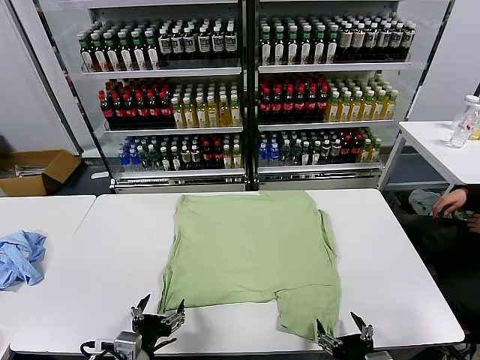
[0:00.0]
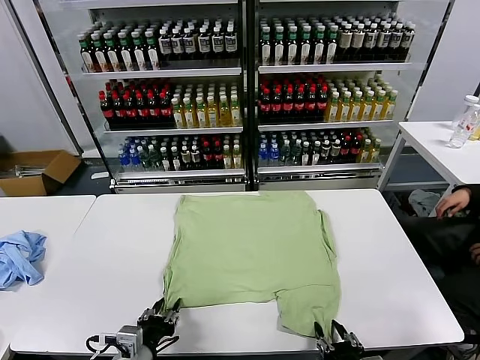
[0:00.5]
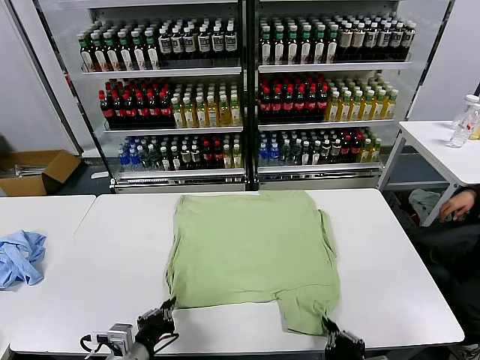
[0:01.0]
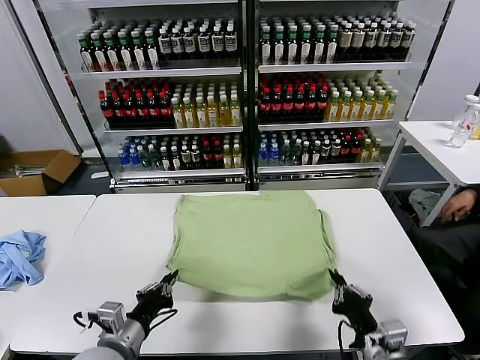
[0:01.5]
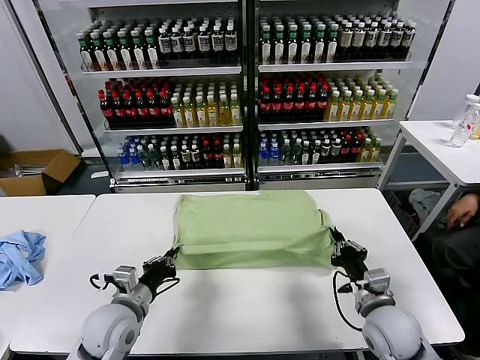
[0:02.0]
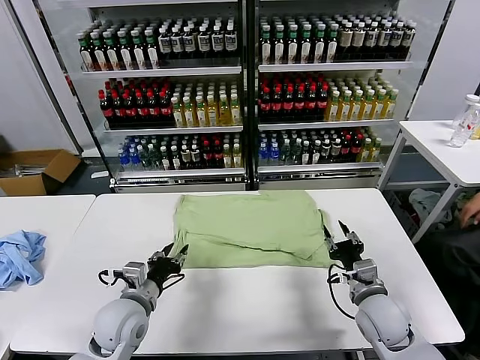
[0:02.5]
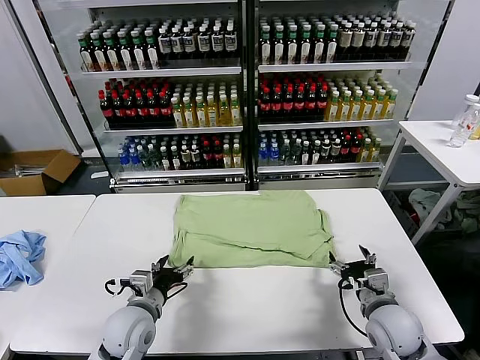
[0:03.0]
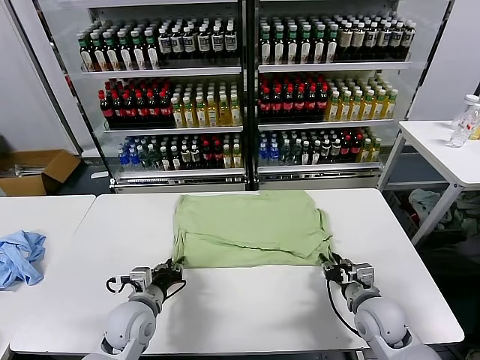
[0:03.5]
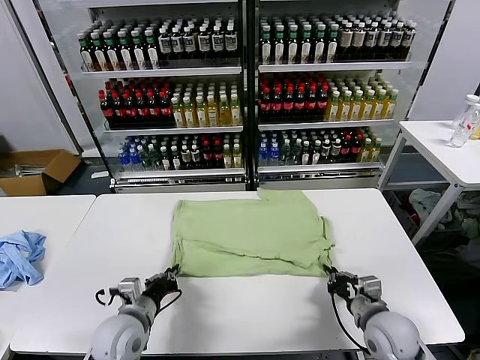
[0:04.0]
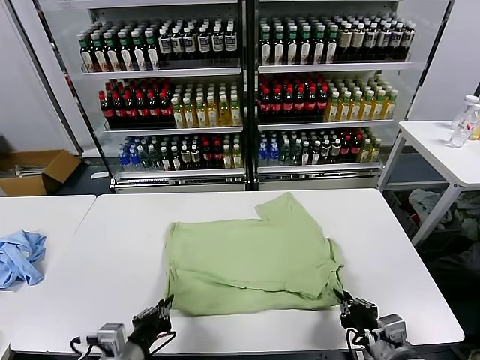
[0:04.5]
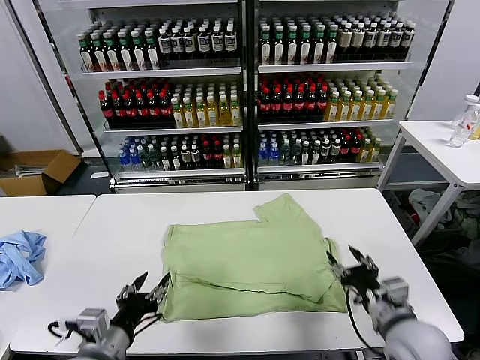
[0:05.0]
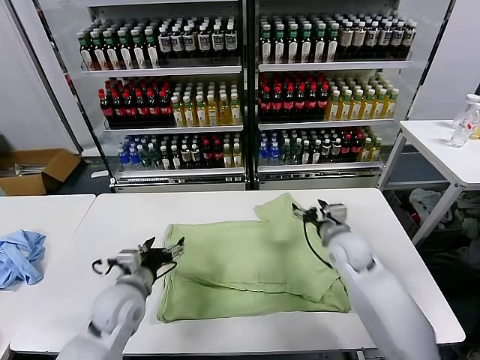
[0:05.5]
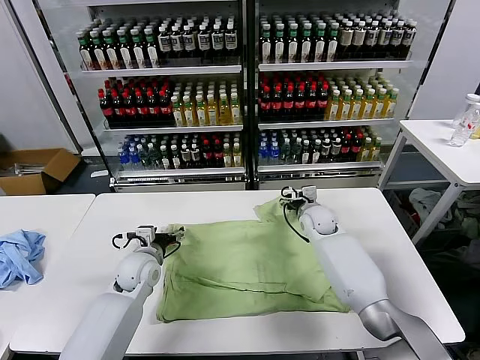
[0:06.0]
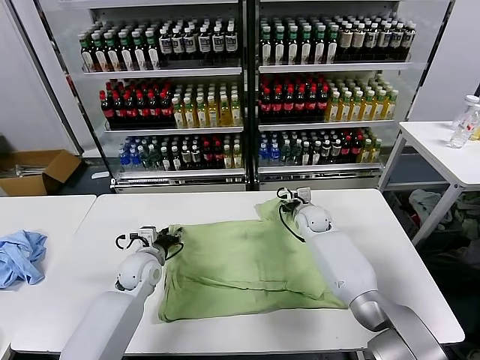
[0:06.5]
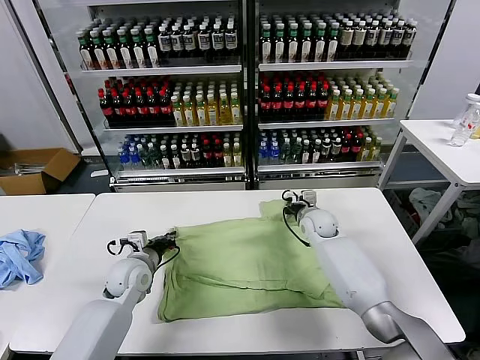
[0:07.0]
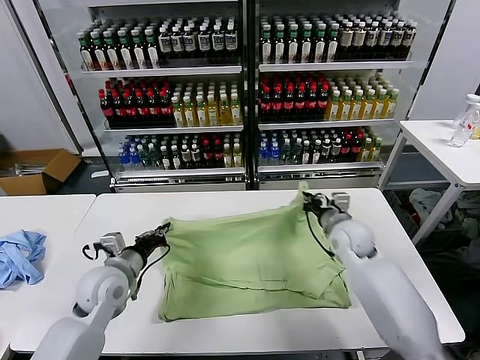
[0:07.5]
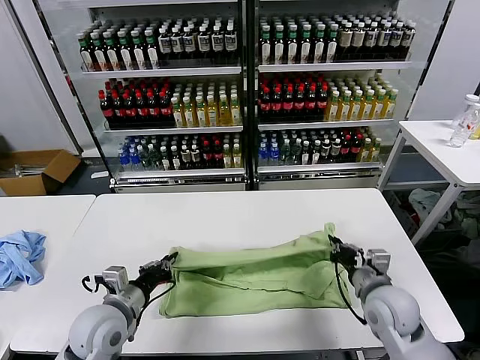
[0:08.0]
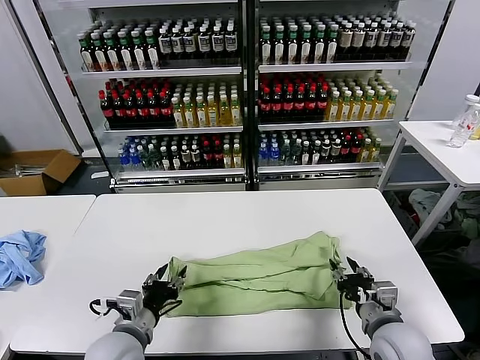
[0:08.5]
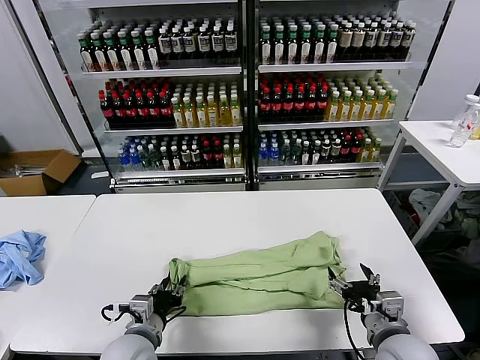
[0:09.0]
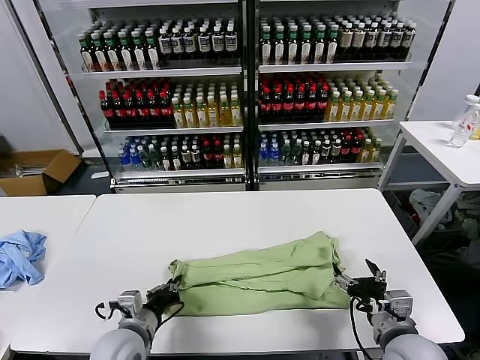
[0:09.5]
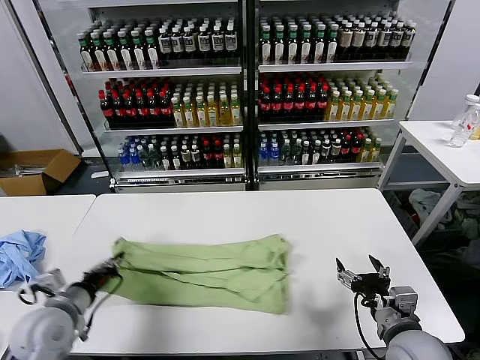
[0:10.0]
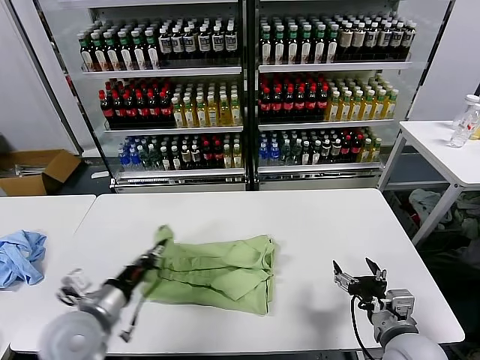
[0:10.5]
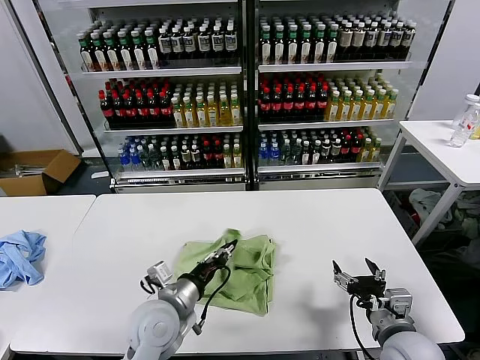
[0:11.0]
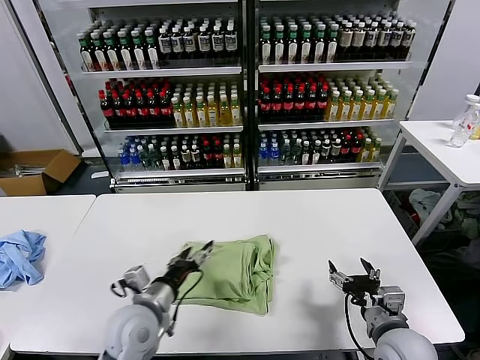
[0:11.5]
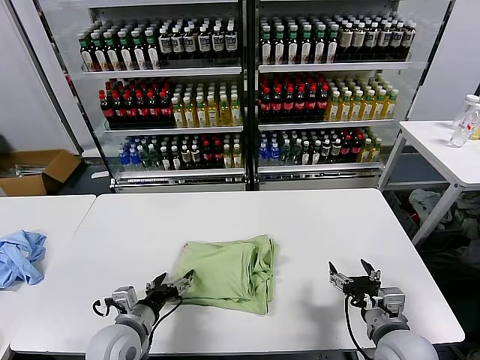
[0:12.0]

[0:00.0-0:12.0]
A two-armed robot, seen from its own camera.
Task of the whole recording: fold and organize the clothes.
Step, 0:00.0 to 0:00.5: use both grippers simultaneously to clamp the lower edge of the clothing fabric.
Step, 0:01.0 to 0:02.0: use both grippers to drag the lower edge of the fabric forward and fold it over the upper edge.
Step, 0:02.5 to 0:04.5: Drag the clothes downward with both gripper.
Step, 0:05.0 to 0:06.5: use both grippers simultaneously to clamp the upper edge of the clothing fabric.
Step, 0:07.0 to 0:08.0: use both grippers to drag the upper edge of the fabric backward and fold it over the lower edge.
Step, 0:08.5 to 0:09.0: use the left gripper to clamp the left edge of the fabric.
Step, 0:09.5 to 0:11.0: use the left gripper to drag the left edge of the fabric to the left and folds it over the right edge.
0:02.0 to 0:04.0: The right gripper changes place by about 5 cm, and opens, then closes again; the left gripper opens, then closes once more.
0:04.0 to 0:06.0: The left gripper shifts approximately 15 cm forward, and opens its fingers. The right gripper travels forward by some 30 cm, and opens its fingers.
0:06.0 to 0:08.0: The right gripper travels backward by some 25 cm, and closes. Meanwhile the left gripper heads backward, covering approximately 15 cm, and closes up.
0:08.0 to 0:10.0: The left gripper heads to the left, covering about 10 cm, and opens, then closes again, while the right gripper moves backward, roughly 5 cm, and opens.
0:10.0 to 0:12.0: The left gripper is displaced to the right and downward by approximately 15 cm, and opens up.

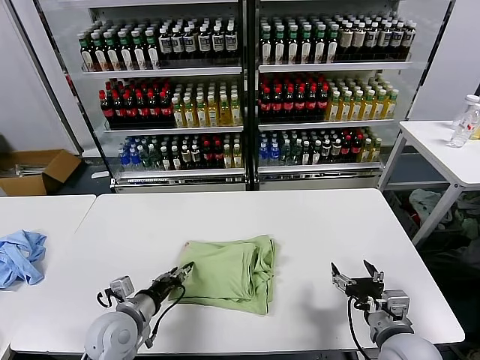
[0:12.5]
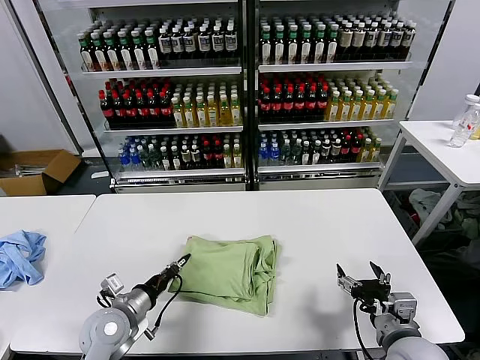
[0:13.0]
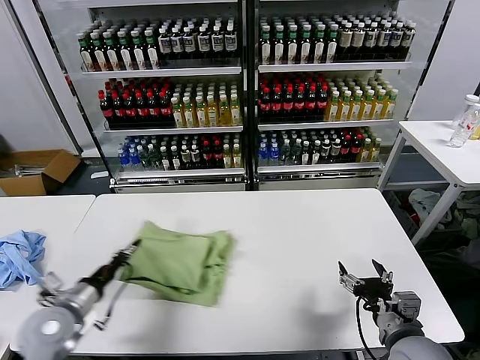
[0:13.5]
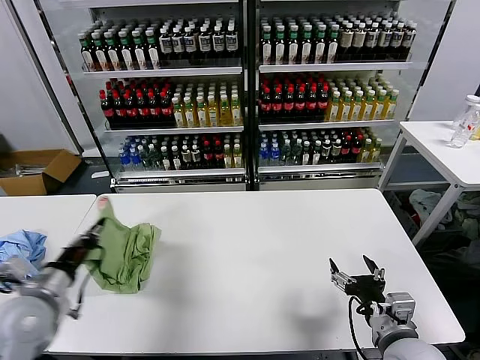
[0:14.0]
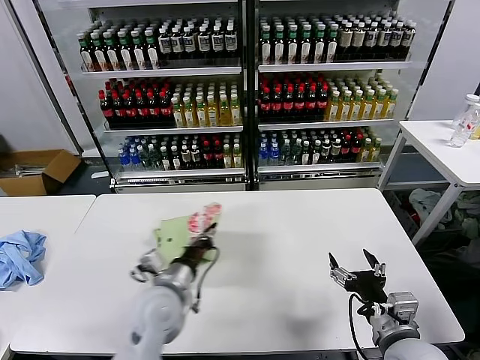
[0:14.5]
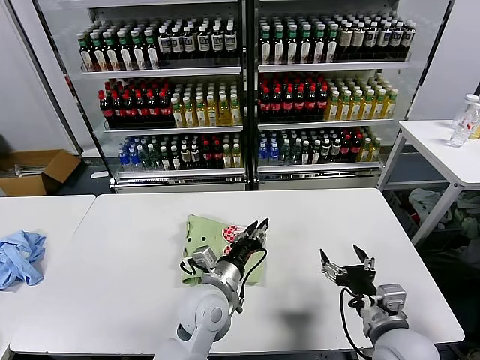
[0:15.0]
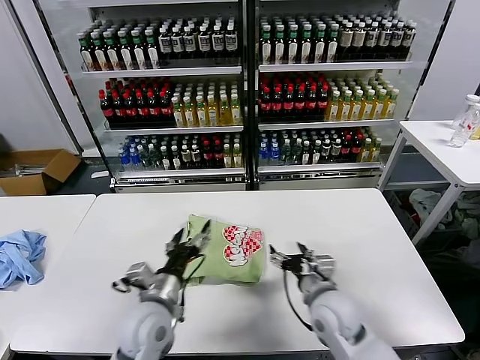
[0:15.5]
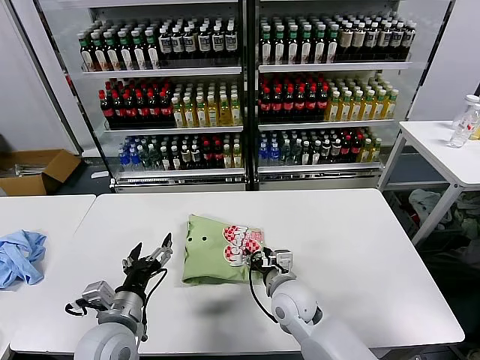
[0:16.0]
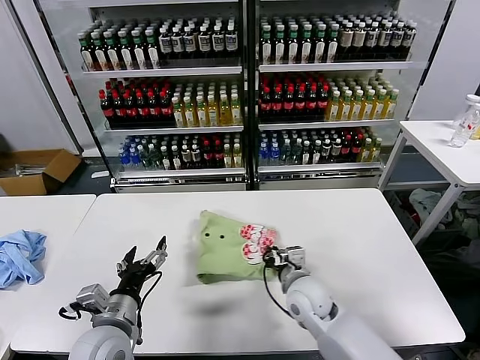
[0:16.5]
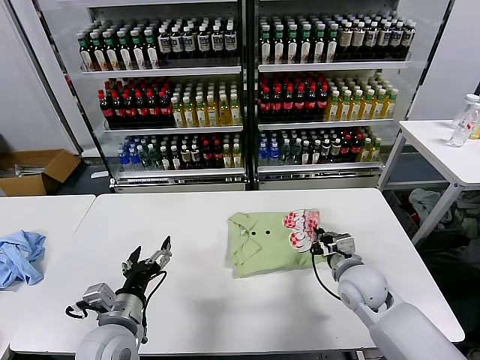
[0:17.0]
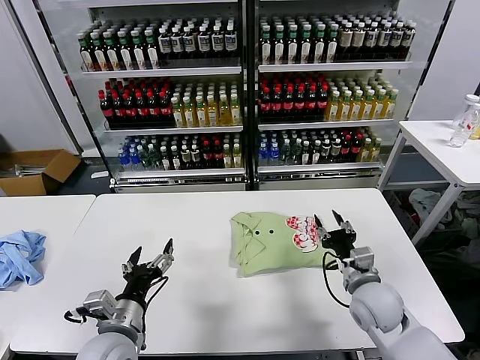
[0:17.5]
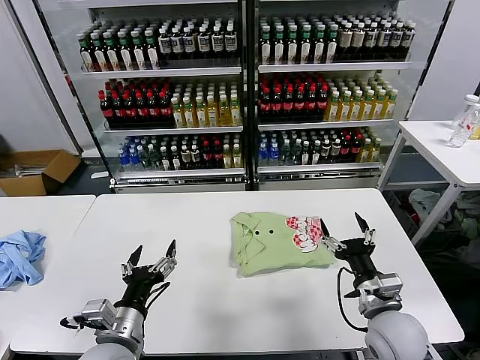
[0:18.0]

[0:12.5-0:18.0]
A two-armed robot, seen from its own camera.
Task of the whole recording: fold and organize the clothes.
Step, 0:12.5 to 0:14.5: Flip the folded clothes over with left gripper.
Step, 0:15.0 to 0:17.0: Drag the clothes to the center of the table.
0:12.5 to 0:14.5: The left gripper goes some 10 cm to the right and upward, and closes its fingers.
0:14.5 to 0:16.0: The left gripper shifts roughly 5 cm backward, moves about 10 cm to the right and comes back, and opens its fingers. Meanwhile the right gripper heads to the left, forward and downward, covering roughly 25 cm.
0:16.0 to 0:18.0: The right gripper moves to the right and backward, about 20 cm, and closes and opens again.

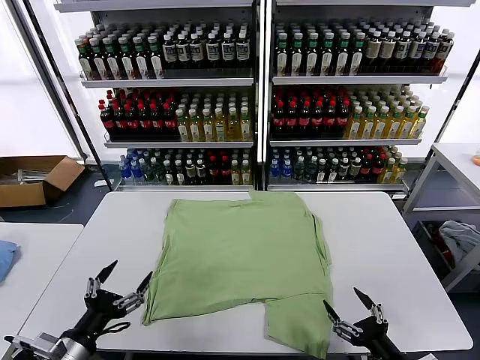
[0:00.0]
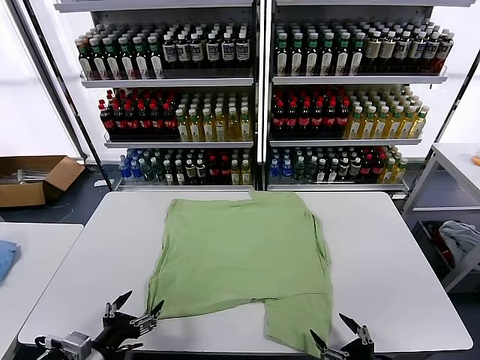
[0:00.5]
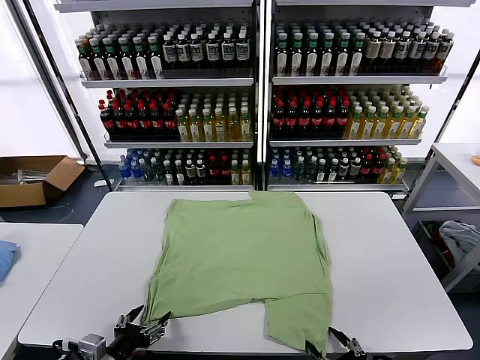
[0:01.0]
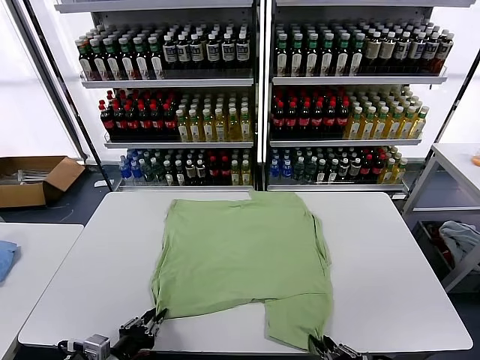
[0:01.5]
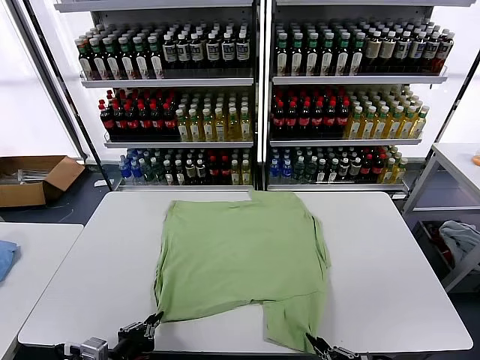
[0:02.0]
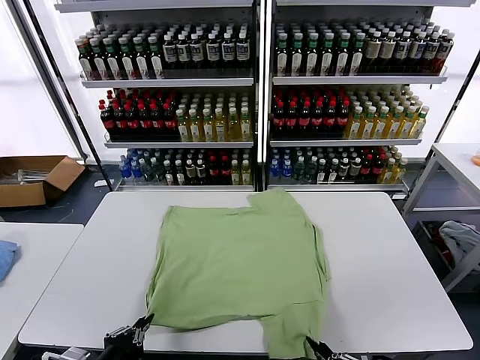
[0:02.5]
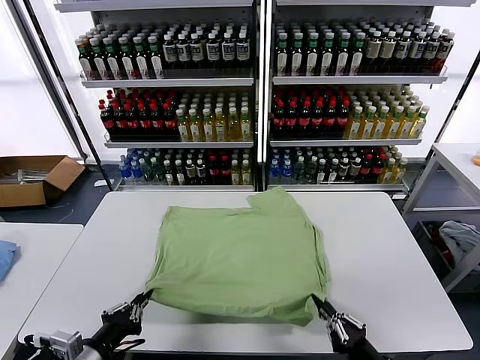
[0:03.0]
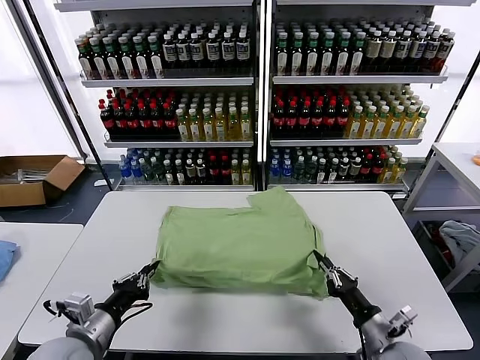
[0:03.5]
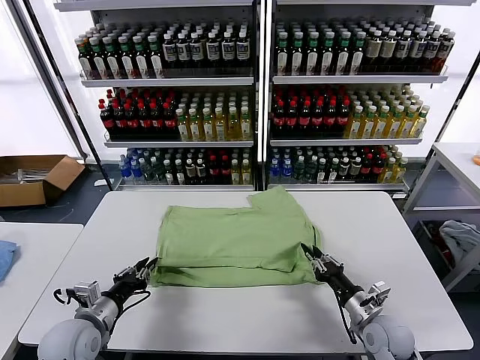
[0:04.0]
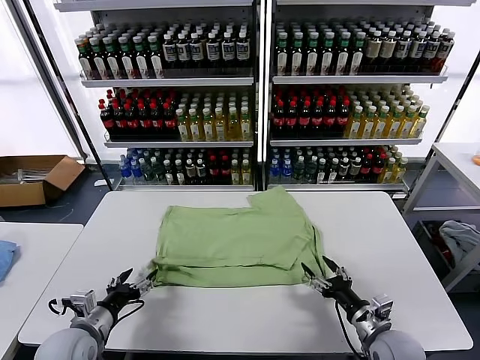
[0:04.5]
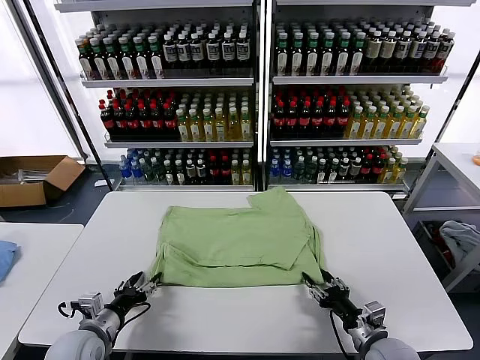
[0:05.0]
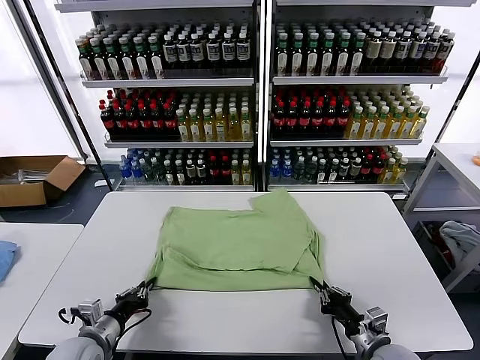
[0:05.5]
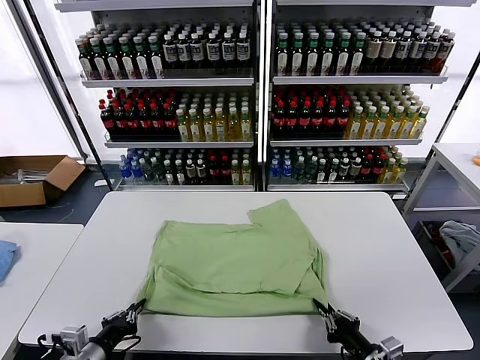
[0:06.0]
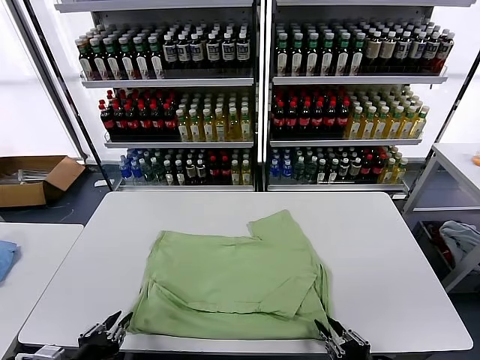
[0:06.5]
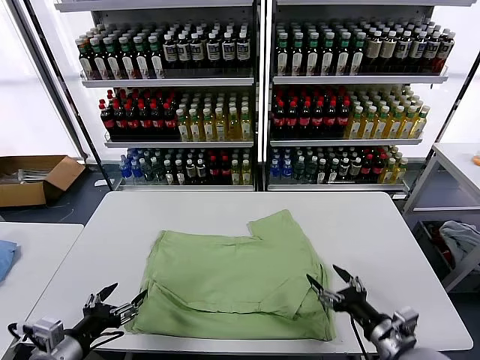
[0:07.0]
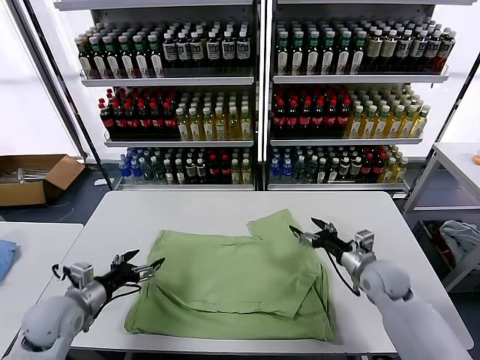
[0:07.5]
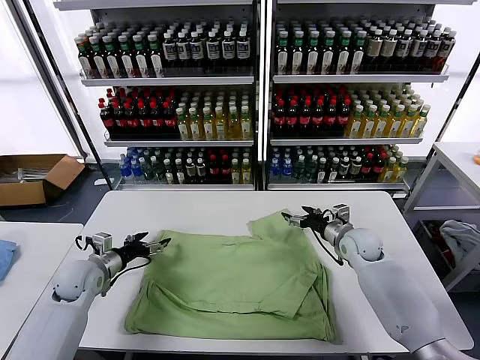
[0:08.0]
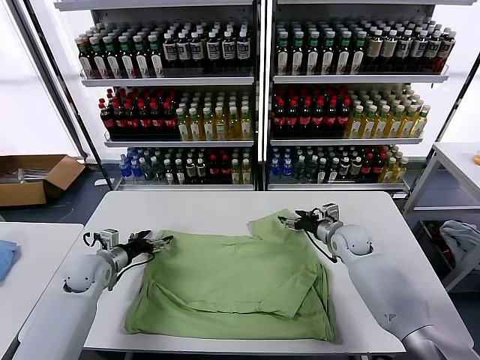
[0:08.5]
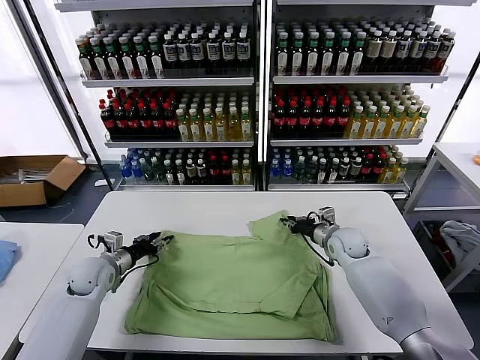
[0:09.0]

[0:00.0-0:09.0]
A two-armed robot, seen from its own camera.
Task of the whole recording: fold and organize the clothes.
Step, 0:00.0 to 0:01.5: use both grippers simultaneously to clamp the lower edge of the clothing fabric.
Step, 0:02.0 to 0:04.5: use both grippers to drag the lower edge of the fabric forward and fold it over the upper edge.
Step, 0:05.0 to 0:06.5: Drag the clothes downward with both gripper.
0:02.0 to 0:04.5: The left gripper is displaced forward and to the left by some 10 cm, and opens up; the right gripper is displaced forward by approximately 15 cm, and opens up.
0:04.5 to 0:07.0: The right gripper is displaced upward by approximately 5 cm, goes backward and returns, about 15 cm each way, and closes, then reopens; the left gripper shifts roughly 10 cm backward and upward, and closes and opens again.
0:07.0 to 0:09.0: Both grippers move forward, some 25 cm. The right gripper closes its fingers.
